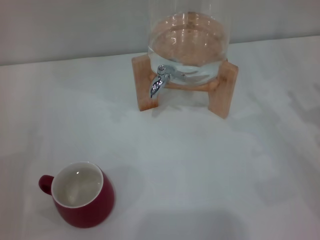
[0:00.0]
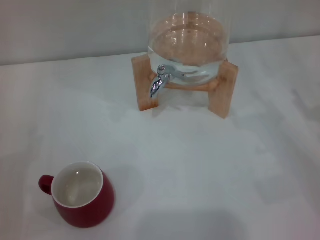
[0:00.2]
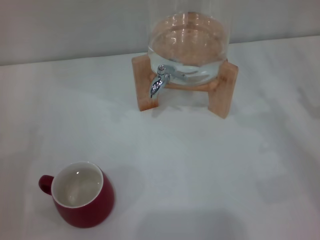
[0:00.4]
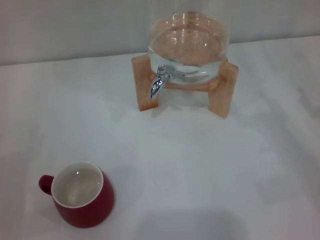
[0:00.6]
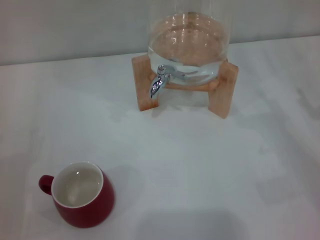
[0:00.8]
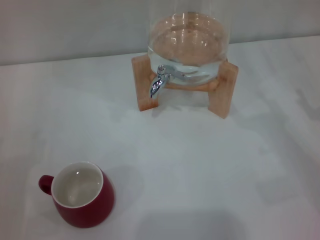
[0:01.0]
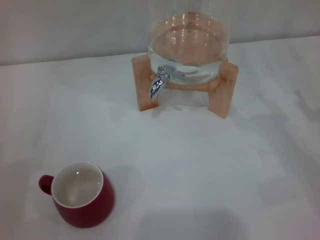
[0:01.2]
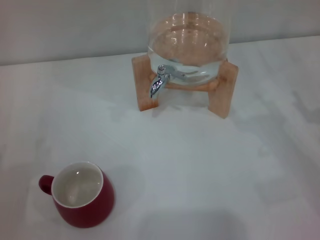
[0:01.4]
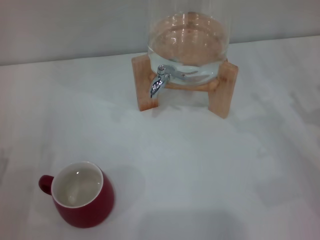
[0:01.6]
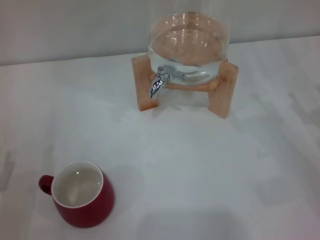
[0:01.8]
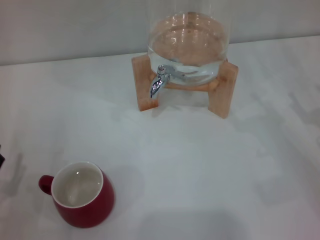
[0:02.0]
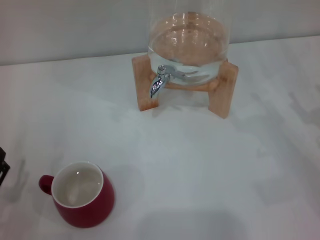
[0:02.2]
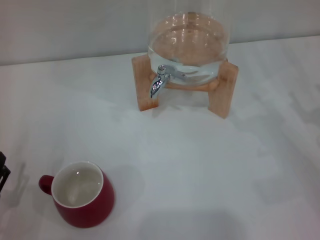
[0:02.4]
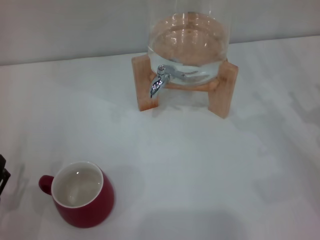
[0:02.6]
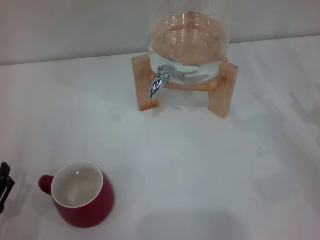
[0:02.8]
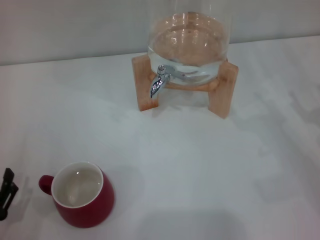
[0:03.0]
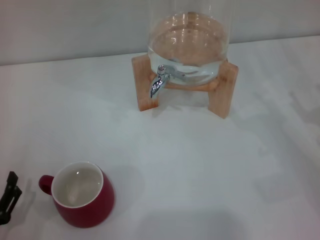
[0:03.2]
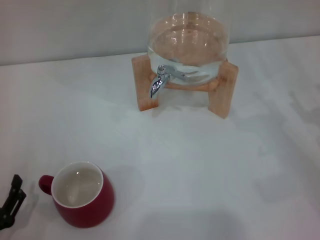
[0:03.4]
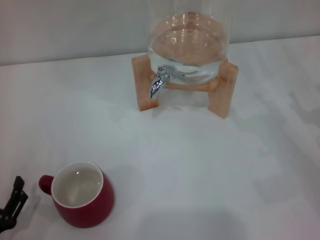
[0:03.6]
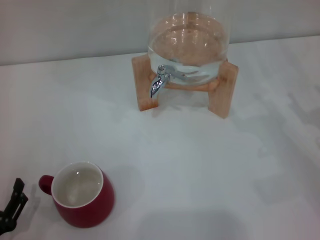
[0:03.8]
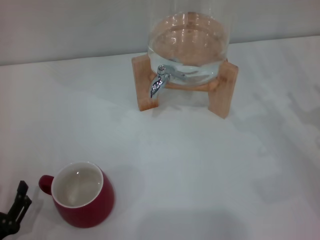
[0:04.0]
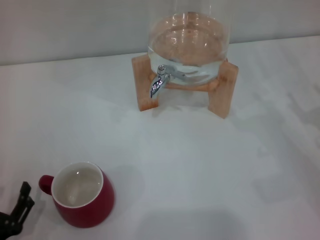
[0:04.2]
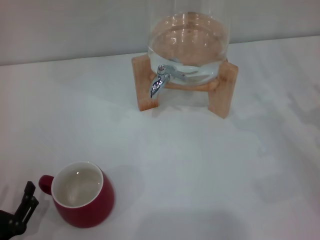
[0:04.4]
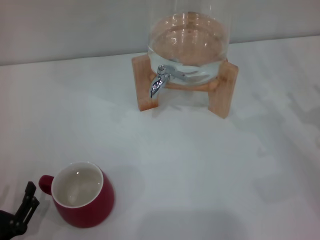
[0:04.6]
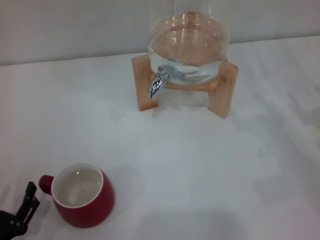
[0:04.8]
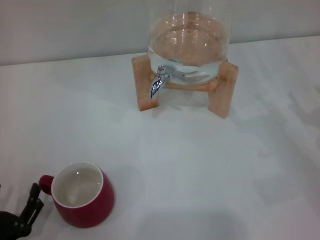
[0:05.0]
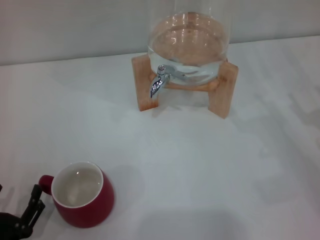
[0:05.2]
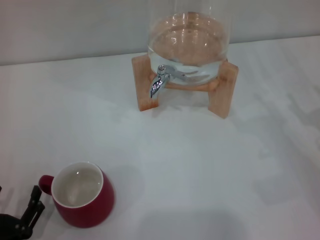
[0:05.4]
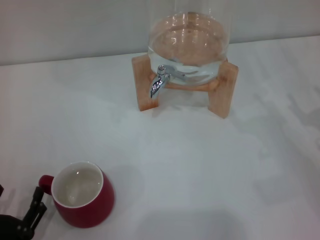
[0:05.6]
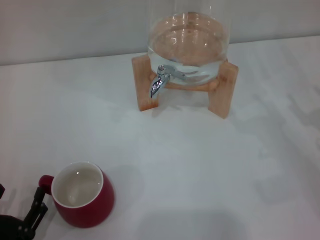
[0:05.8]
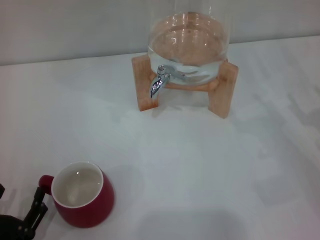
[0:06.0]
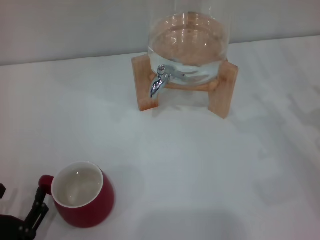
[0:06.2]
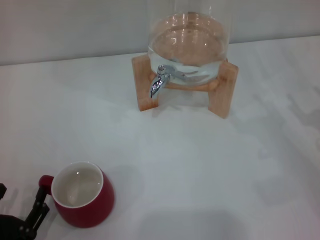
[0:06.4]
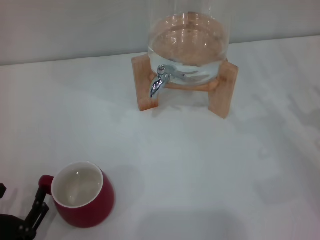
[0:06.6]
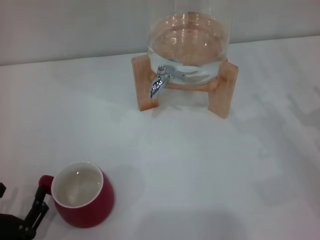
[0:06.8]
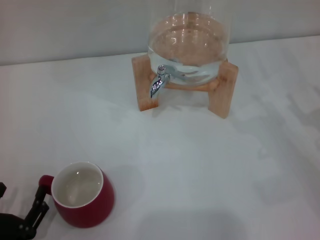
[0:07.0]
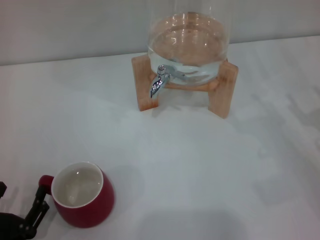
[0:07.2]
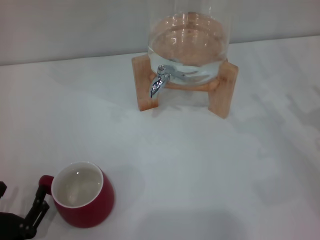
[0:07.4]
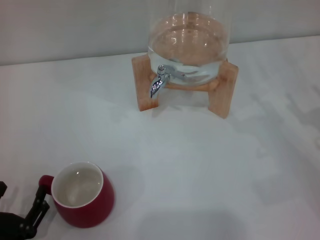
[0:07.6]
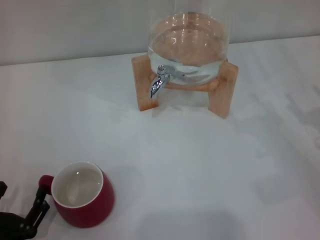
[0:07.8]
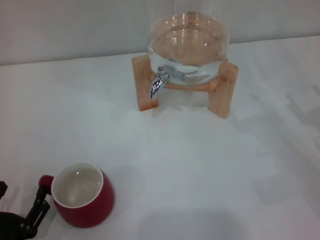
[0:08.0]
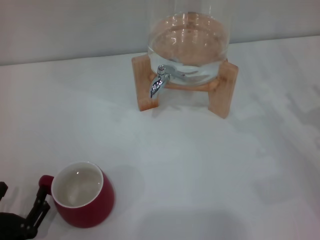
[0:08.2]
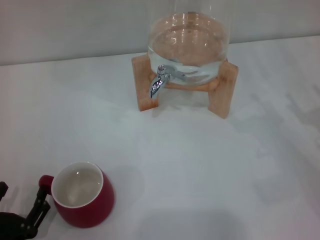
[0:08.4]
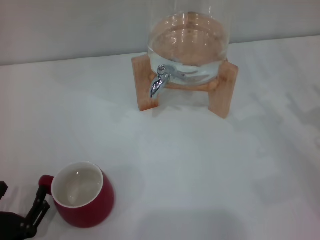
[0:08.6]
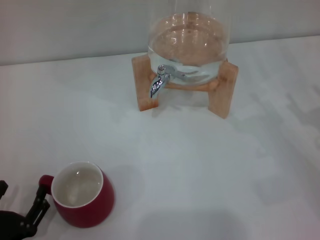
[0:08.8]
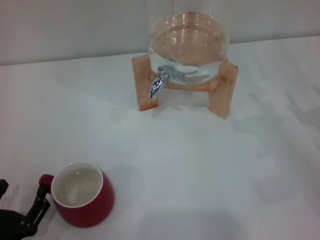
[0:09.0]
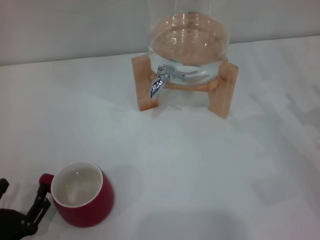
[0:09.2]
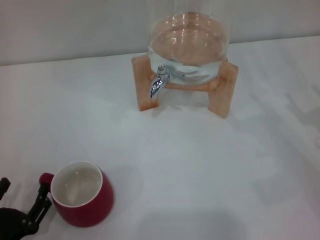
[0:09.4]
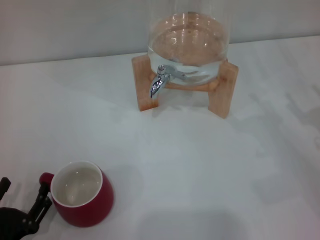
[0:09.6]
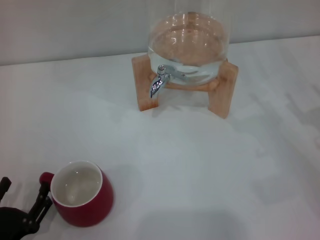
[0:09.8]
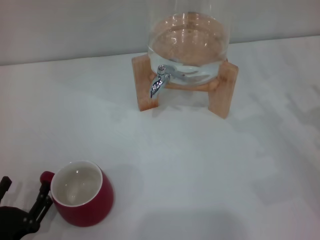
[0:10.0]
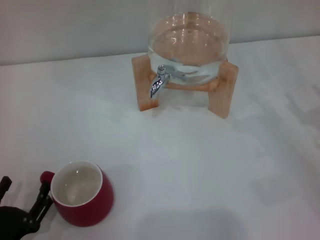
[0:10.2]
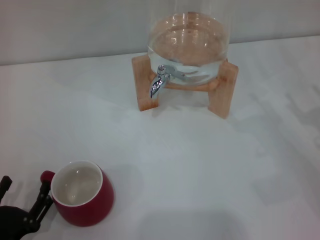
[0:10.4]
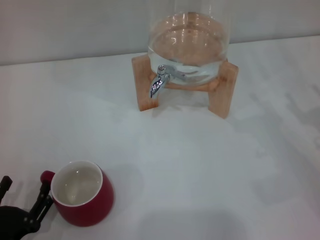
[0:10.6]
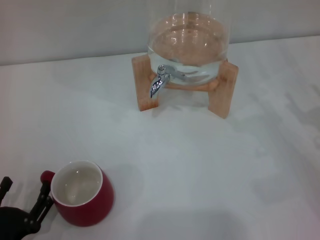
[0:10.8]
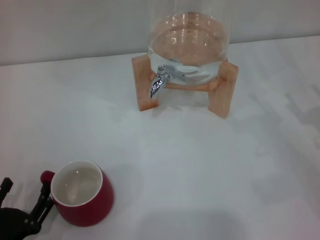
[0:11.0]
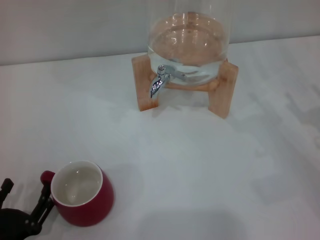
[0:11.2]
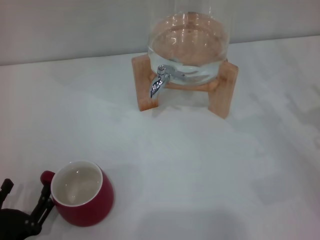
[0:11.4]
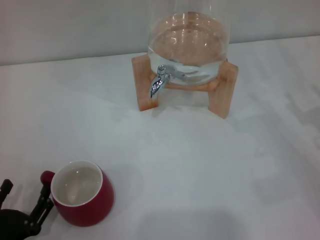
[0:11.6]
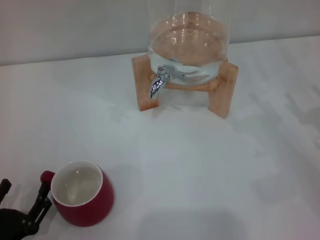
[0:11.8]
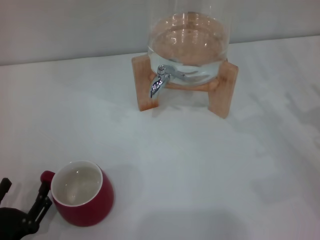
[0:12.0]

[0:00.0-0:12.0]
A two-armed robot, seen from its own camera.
Task of the whole recording: the left gripper pick up the red cup and place it horizontally under the faucet, the right gripper turn on the faucet to fill the cup, and then turn off the faucet.
0:01.6 to 0:03.0: The left gripper shifts by roughly 5 cm.
0:03.0 to 0:04.4: There are only small adjustments of the grippers.
0:04.4 to 0:12.0: Both grippers stay about where they are.

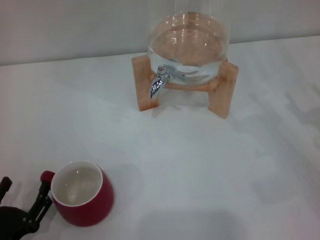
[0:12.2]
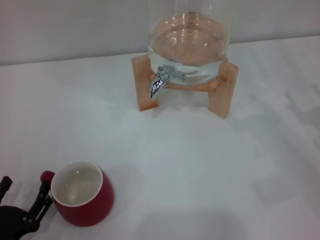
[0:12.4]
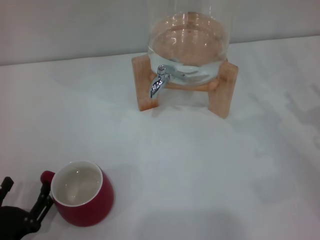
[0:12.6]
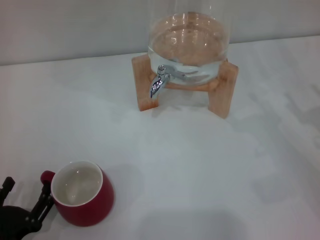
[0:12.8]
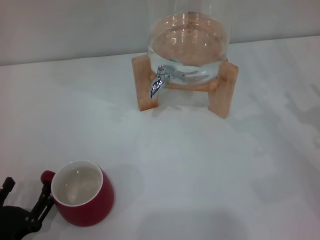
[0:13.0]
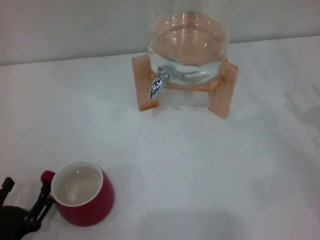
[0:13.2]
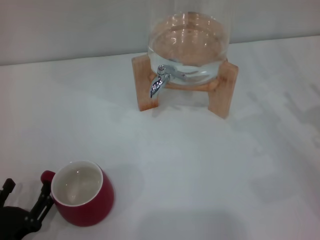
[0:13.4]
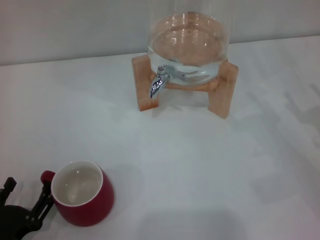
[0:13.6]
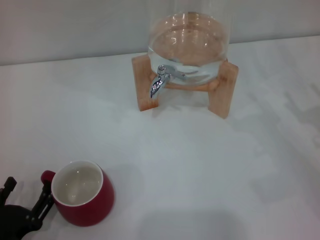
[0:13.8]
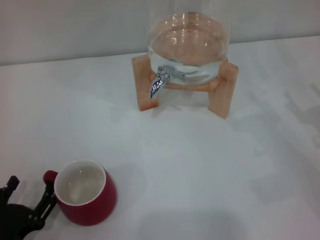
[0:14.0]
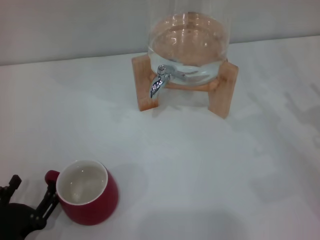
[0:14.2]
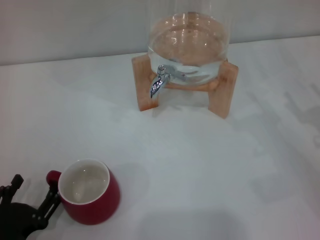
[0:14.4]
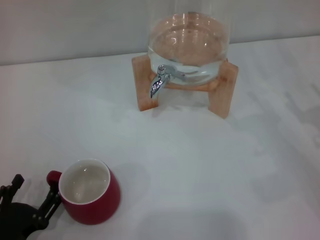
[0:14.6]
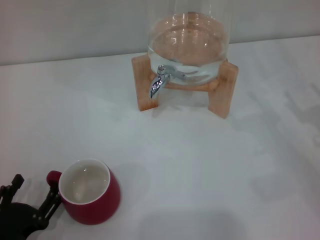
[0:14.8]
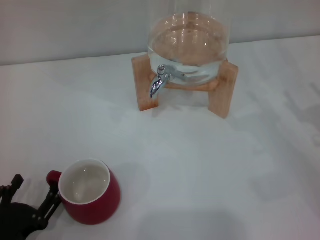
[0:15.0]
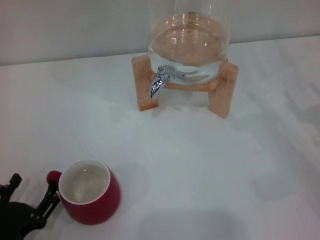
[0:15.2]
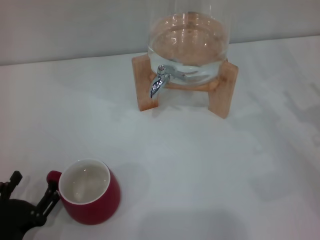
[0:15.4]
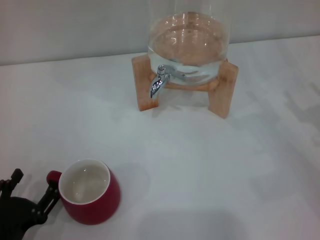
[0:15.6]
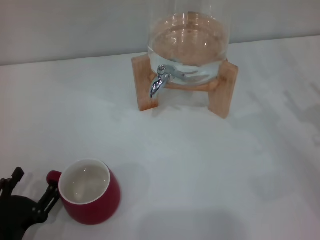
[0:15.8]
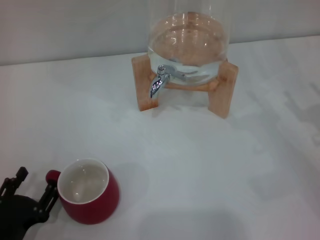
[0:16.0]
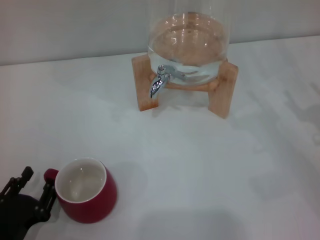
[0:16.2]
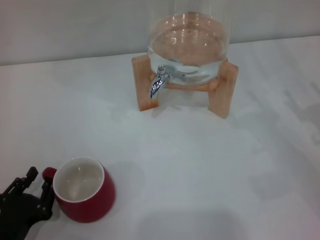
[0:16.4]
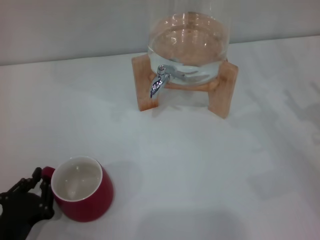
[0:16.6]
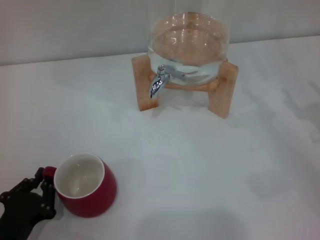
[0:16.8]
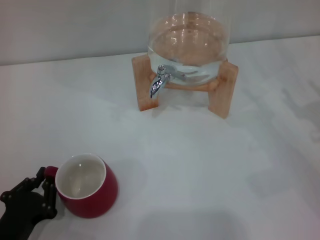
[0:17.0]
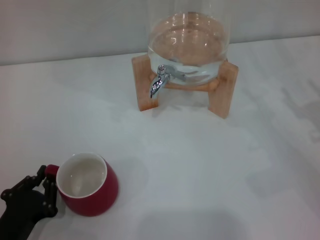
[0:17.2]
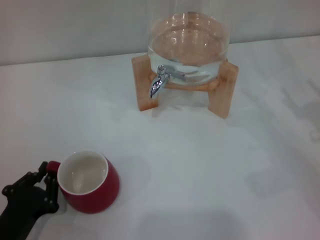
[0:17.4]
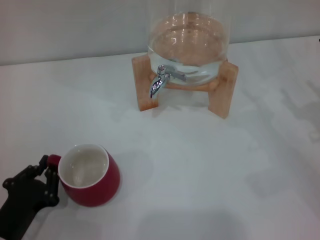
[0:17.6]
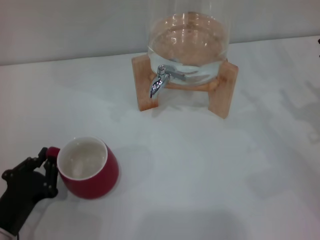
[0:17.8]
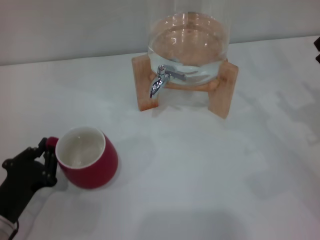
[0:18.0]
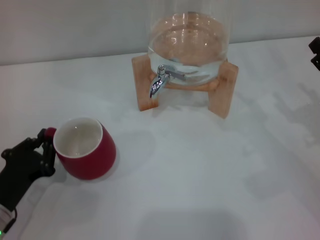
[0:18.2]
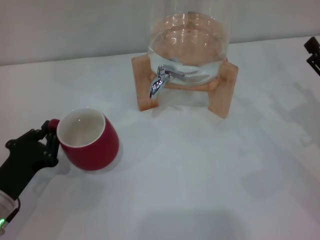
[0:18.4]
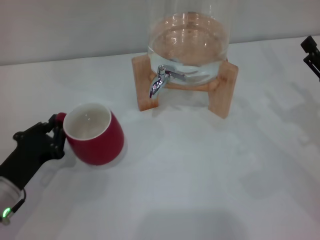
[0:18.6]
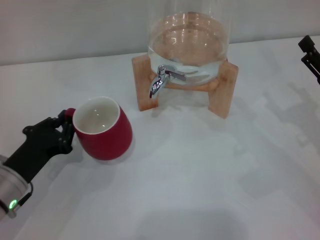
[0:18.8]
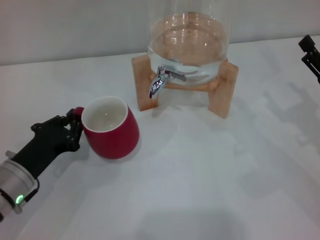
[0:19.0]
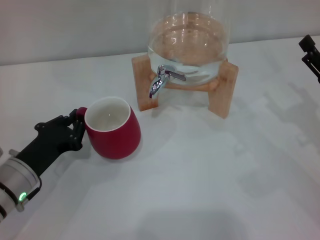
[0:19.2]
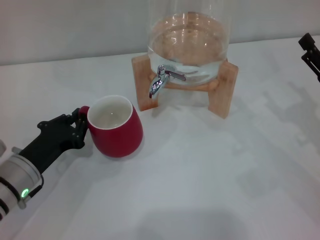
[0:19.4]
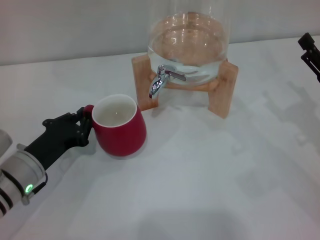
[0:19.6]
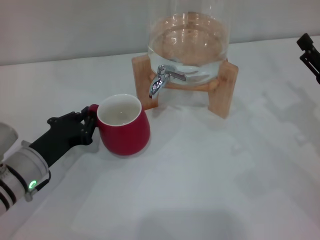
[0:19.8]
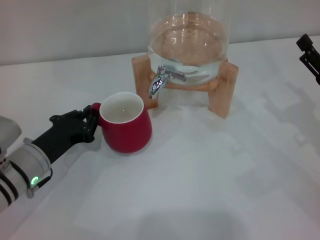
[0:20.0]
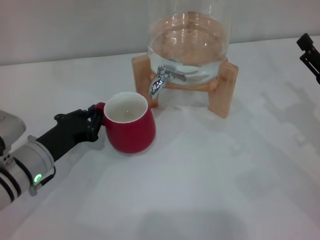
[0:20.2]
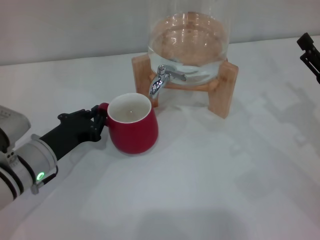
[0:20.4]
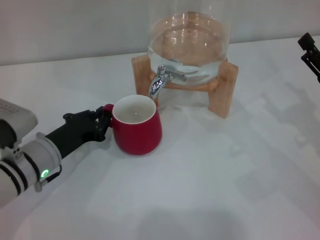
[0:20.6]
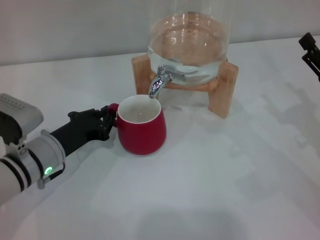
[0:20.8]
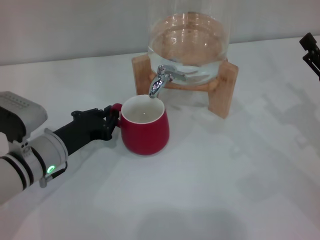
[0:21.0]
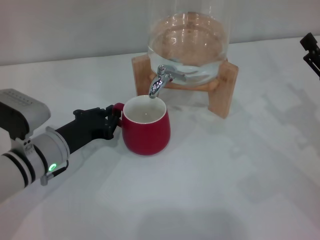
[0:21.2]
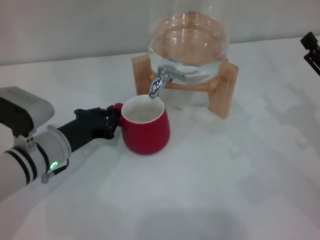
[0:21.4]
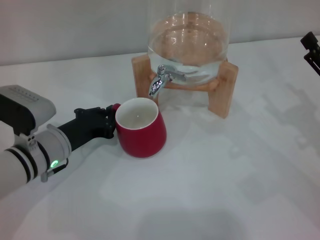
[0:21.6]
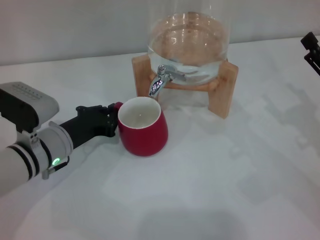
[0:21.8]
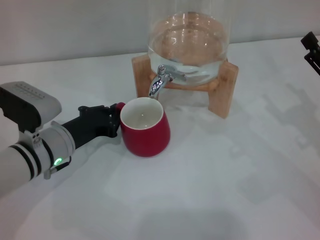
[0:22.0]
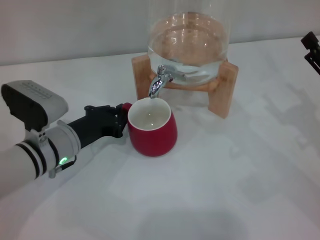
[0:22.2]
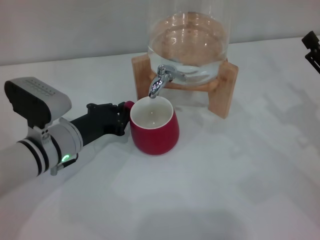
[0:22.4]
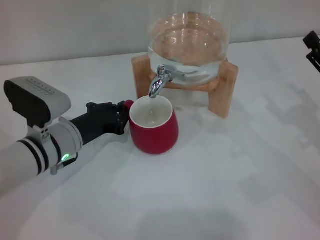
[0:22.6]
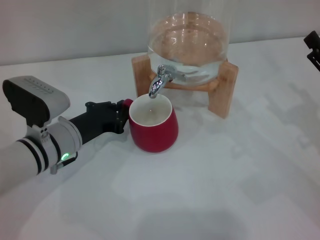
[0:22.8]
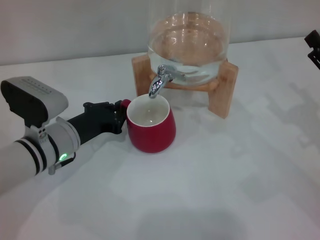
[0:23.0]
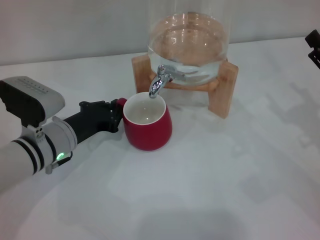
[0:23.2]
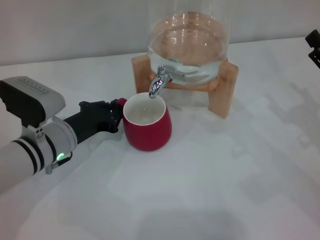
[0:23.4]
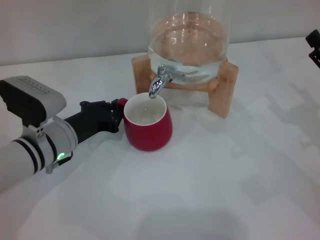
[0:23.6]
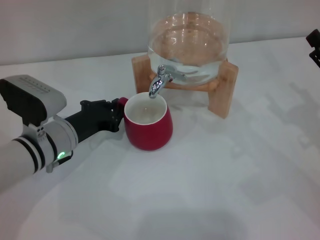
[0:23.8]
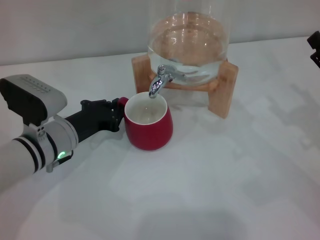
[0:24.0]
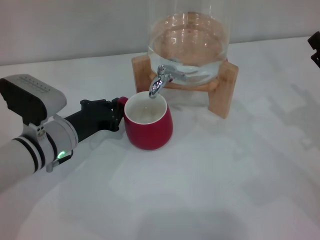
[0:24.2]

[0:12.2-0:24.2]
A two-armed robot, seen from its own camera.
Task of the whole recording: the left gripper pick up the red cup and place it horizontally under the faucet, the right gripper turn on the faucet to fill the cup, and then turn off the faucet.
0:12.2 to 0:15.2: Both grippers stay put.
0:15.2 to 0:16.6: The left gripper closes its fingers.
0:16.6 to 0:18.2: The left gripper is displaced forward by about 5 cm, and closes its fingers.
0:18.2 to 0:19.8: The left gripper shifts roughly 5 cm forward.
0:19.8 to 0:21.2: The grippers make only small movements.
0:21.2 to 0:22.6: The grippers make only small movements.
0:22.6 to 0:24.2: Both grippers stay about where they are.
